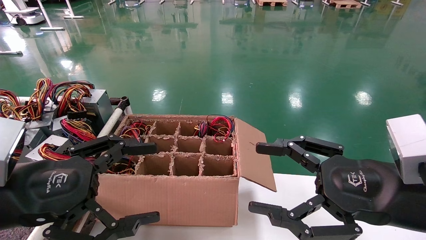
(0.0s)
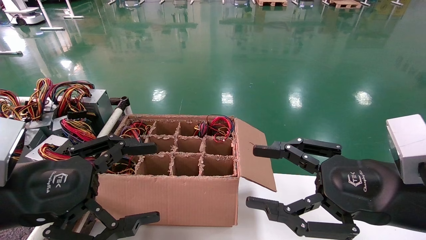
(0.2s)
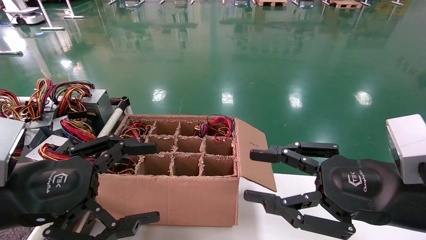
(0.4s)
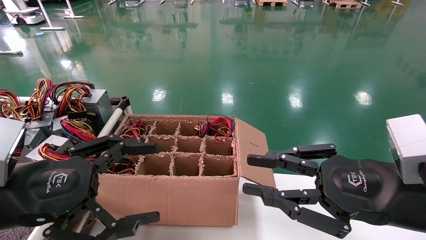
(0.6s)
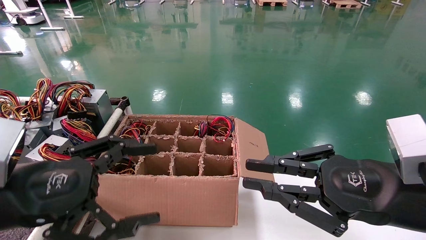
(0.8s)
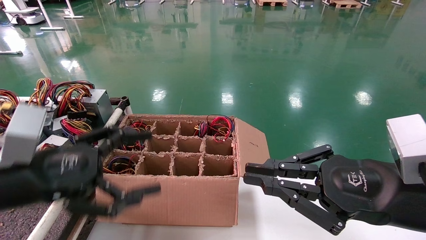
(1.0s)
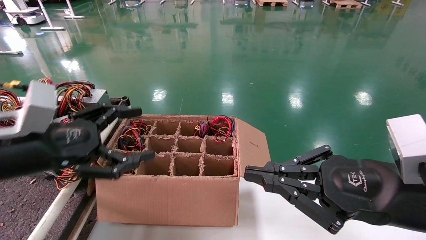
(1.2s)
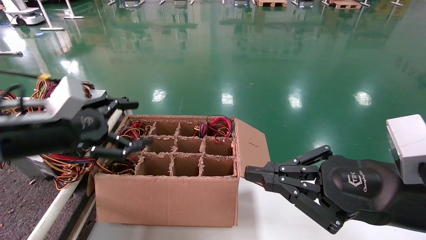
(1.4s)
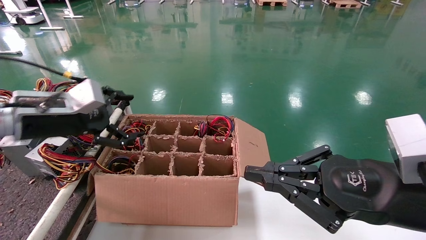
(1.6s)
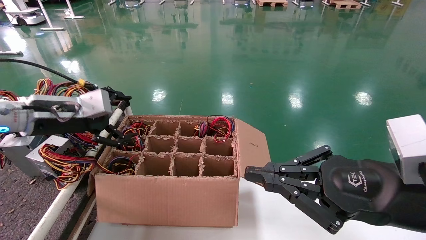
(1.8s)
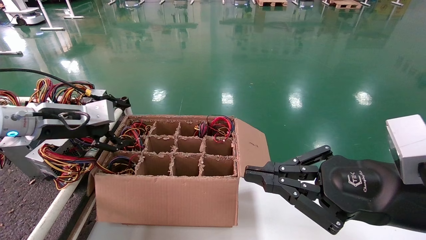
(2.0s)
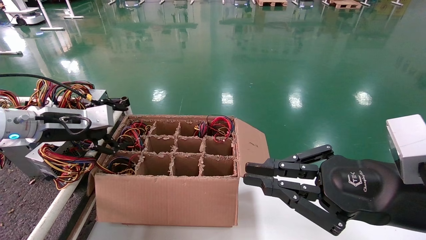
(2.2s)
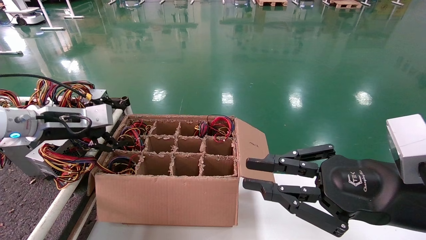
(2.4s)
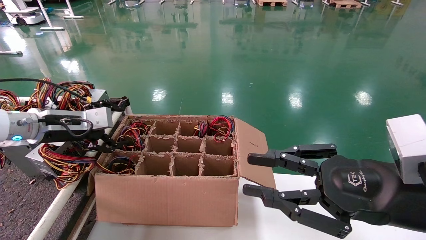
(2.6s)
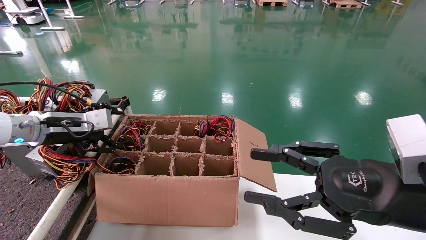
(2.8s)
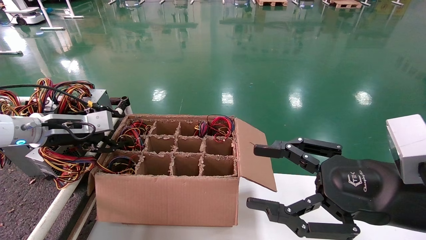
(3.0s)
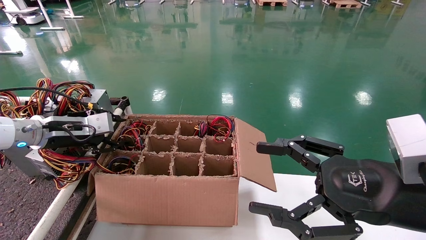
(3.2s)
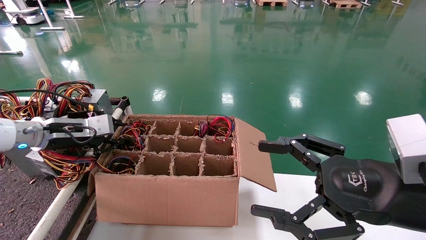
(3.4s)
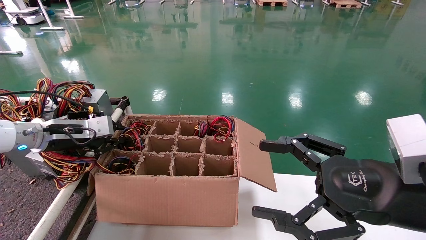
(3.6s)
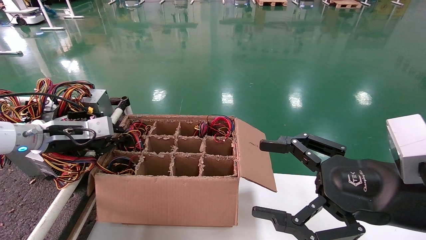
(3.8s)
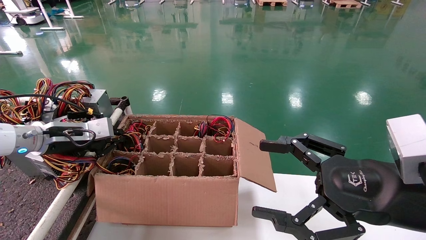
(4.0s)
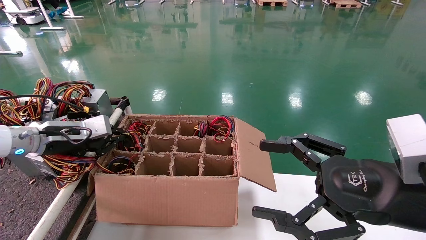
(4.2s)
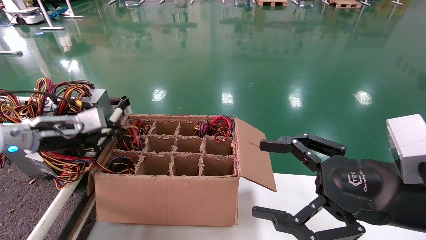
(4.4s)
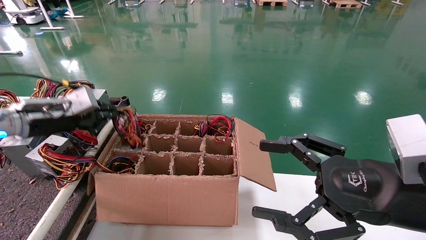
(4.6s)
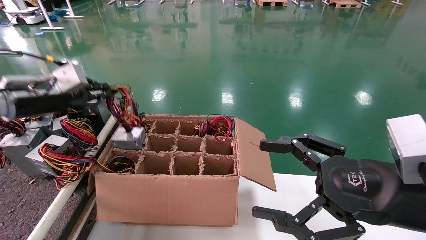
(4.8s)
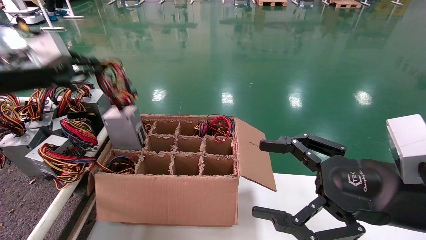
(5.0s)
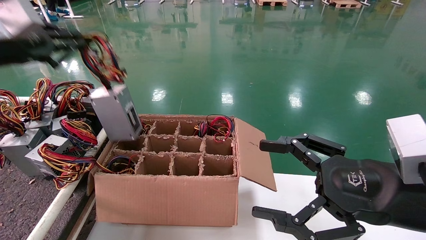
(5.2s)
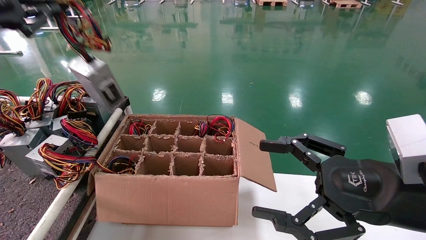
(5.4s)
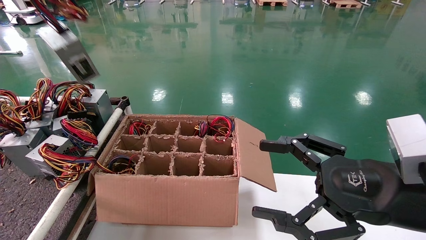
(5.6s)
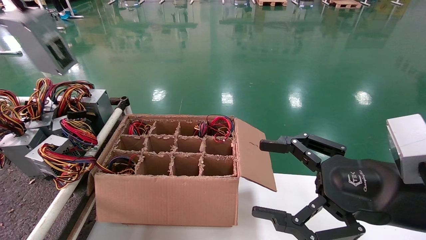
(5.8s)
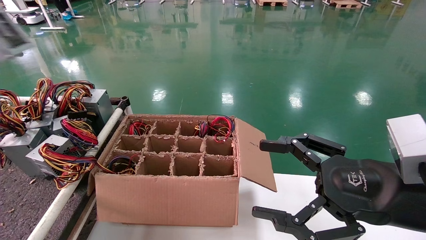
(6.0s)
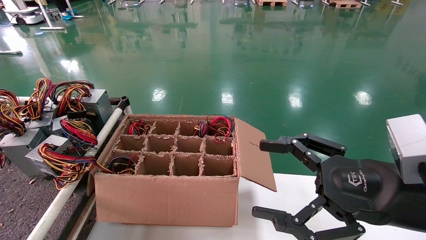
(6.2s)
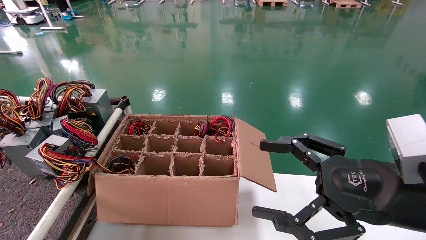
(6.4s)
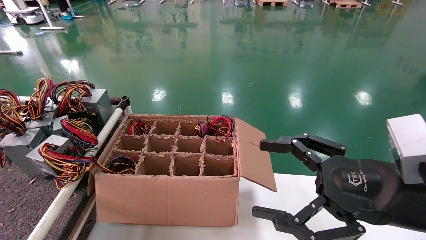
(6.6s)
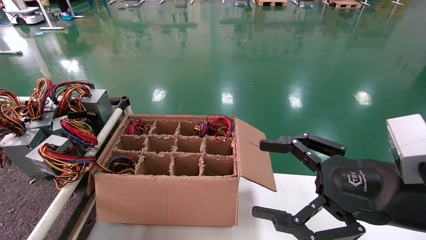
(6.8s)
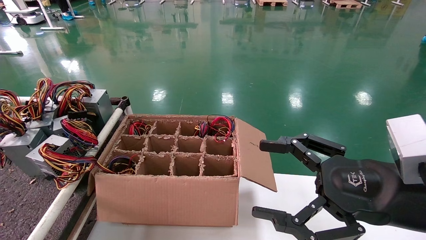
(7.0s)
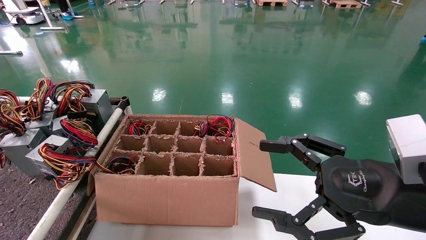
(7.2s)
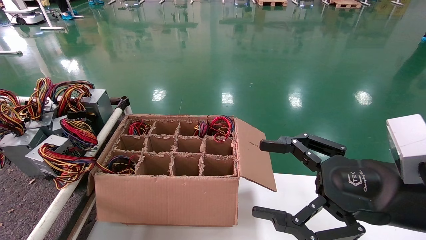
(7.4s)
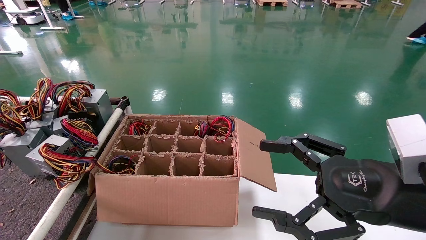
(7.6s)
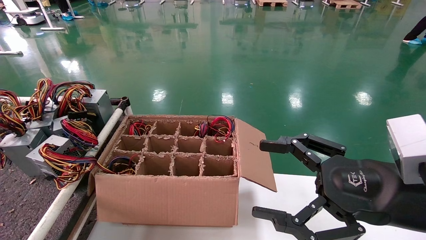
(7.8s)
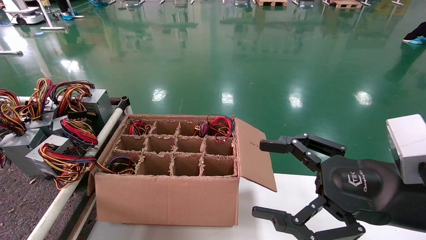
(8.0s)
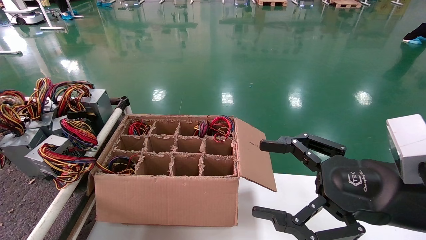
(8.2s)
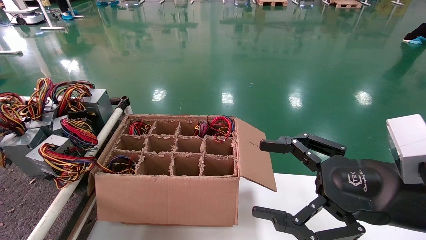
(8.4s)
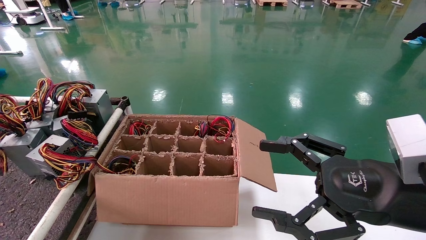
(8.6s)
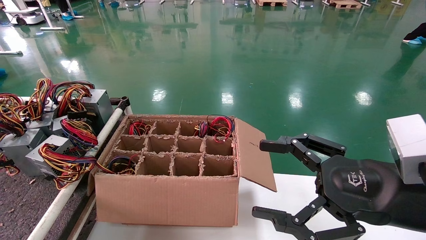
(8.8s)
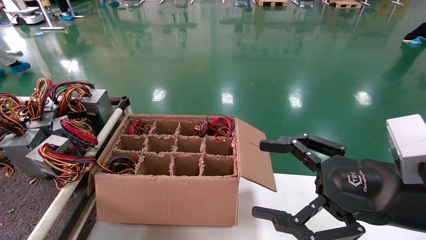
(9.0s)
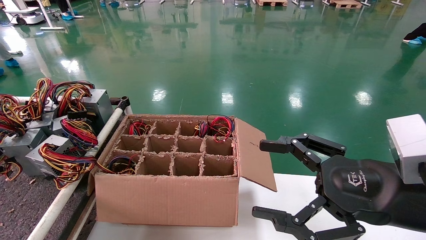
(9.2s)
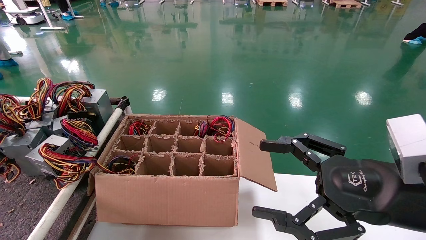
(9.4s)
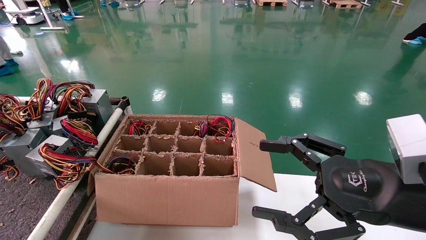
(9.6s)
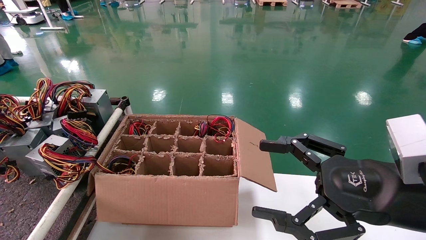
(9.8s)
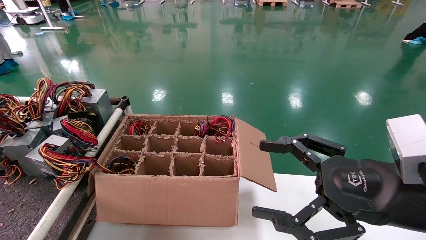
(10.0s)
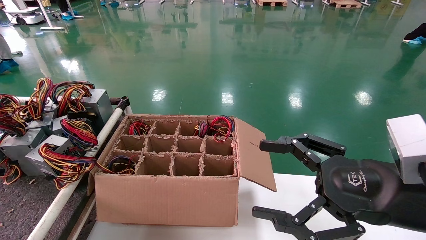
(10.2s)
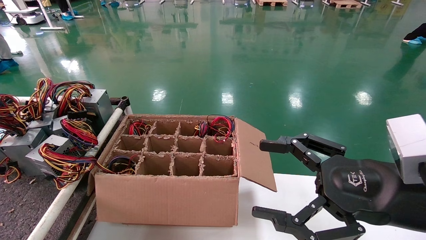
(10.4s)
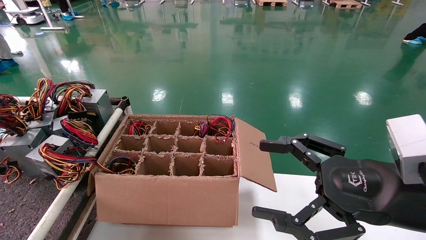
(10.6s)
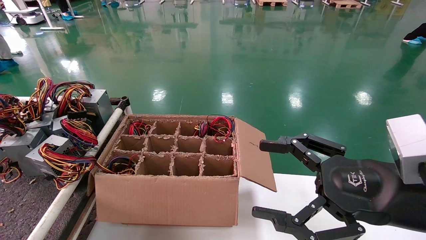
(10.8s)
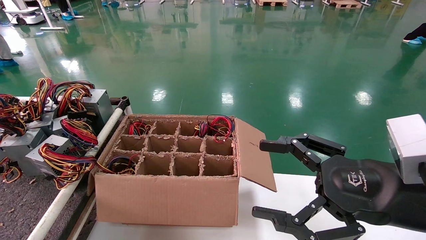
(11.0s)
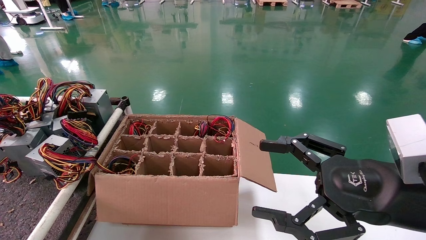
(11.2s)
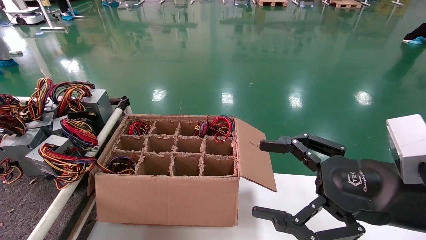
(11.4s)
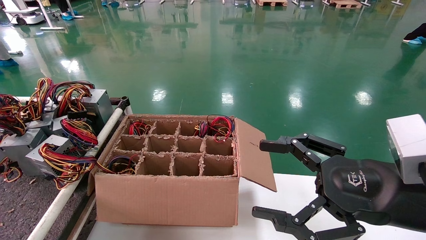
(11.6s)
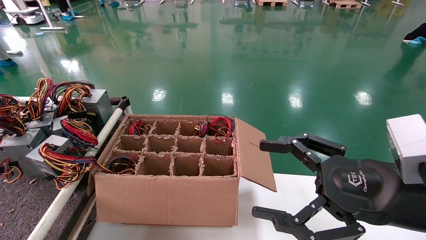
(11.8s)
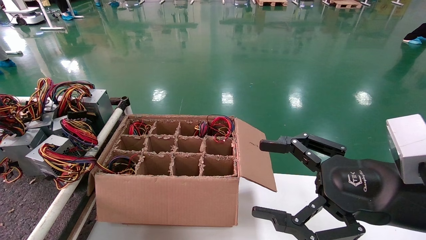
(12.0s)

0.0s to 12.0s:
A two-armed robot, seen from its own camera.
Step, 1.0s to 4.4s: Grab and lift the power supply from the large box.
0.0s to 1.6s: The left gripper travels forward by about 15 cm. The right gripper closes.
1.6s to 3.0s: The right gripper opens its fingers, while the left gripper shifts approximately 5 cm forward.
3.0s to 4.4s: The right gripper opens its fingers. The left gripper closes its fingers.
4.4s to 6.0s: The left gripper goes about 35 cm upward, to the left and backward.
6.0s to 7.6s: The left gripper travels to the left and downward by roughly 15 cm.
7.6s to 9.0s: The left gripper is displaced downward by roughly 10 cm.
9.0s to 10.4s: The left gripper goes approximately 5 cm downward.

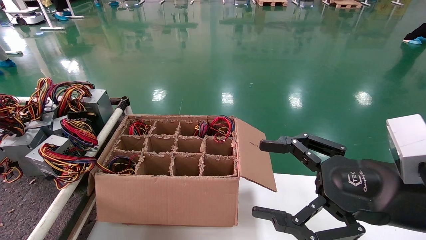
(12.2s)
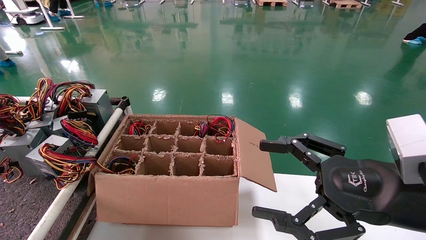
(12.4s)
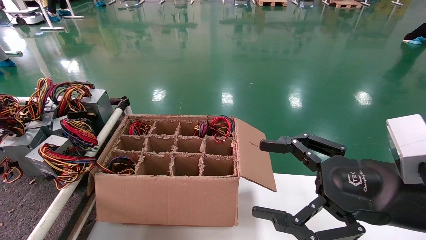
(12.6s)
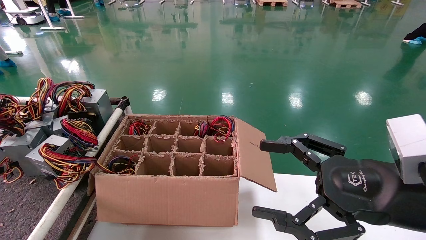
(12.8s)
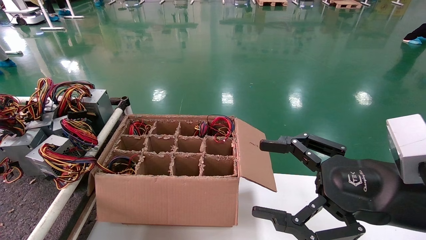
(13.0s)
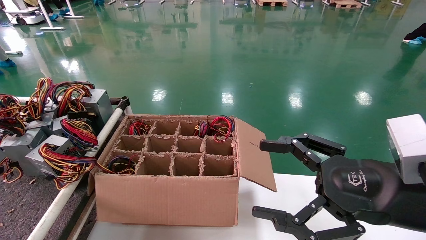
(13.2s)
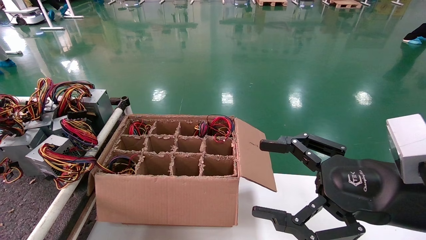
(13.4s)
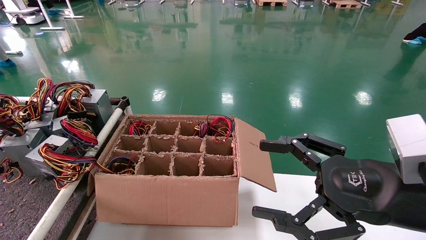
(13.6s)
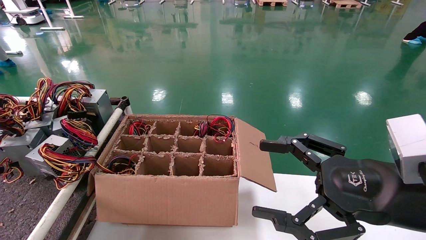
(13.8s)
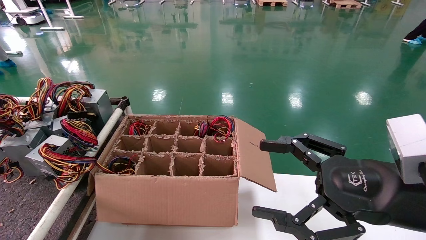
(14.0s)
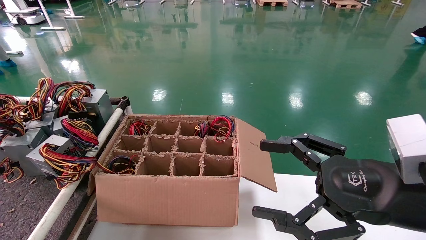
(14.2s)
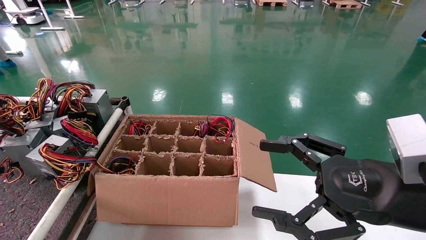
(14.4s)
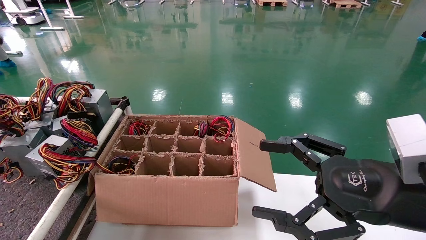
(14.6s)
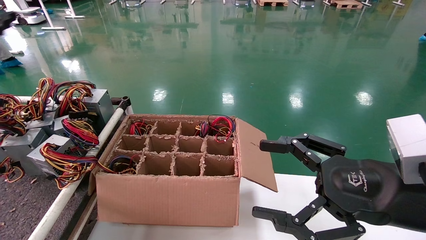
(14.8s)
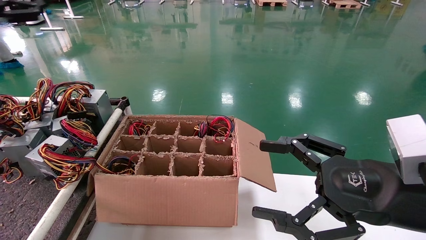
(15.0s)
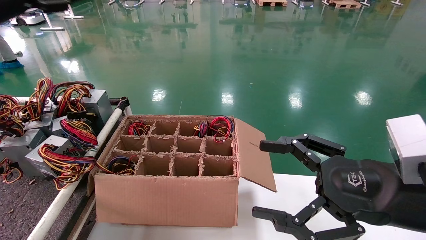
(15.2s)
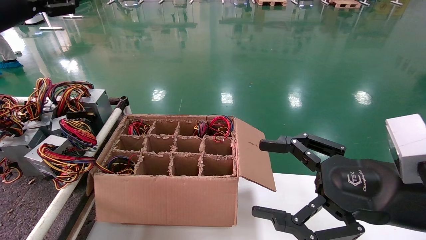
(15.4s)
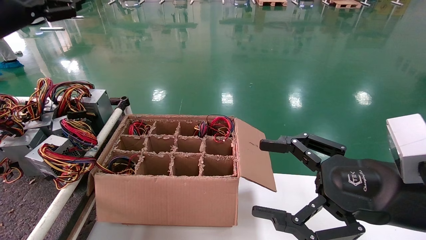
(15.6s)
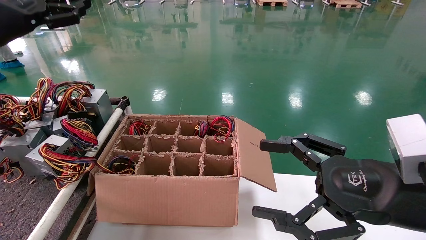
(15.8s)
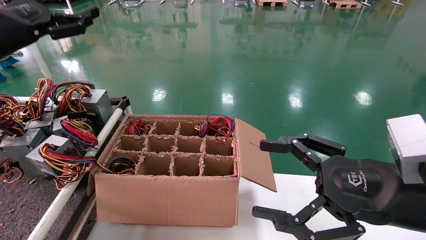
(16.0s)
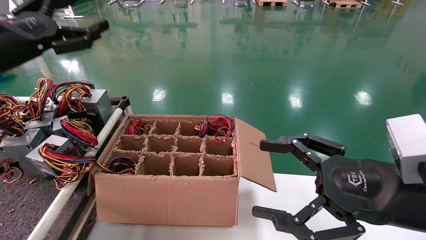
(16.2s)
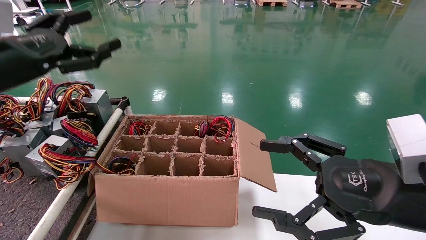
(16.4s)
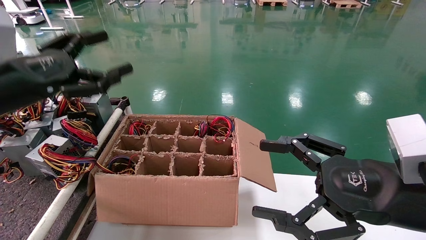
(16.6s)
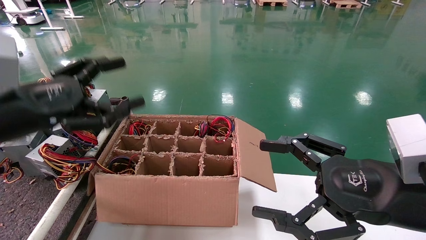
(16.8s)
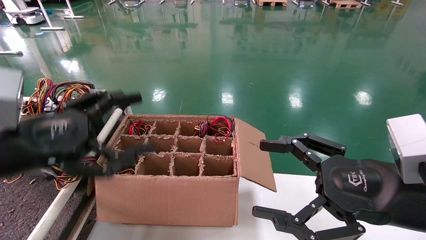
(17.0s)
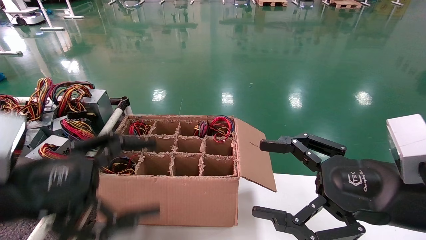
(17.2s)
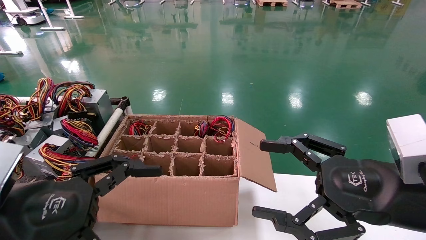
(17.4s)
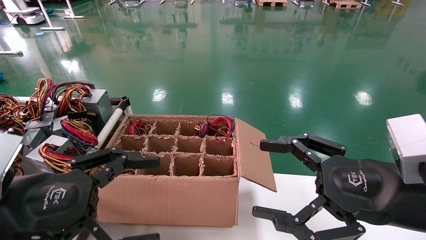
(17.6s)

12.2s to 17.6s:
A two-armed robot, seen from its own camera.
12.2s to 13.6s: The left gripper opens.
13.6s to 15.0s: The left gripper shifts about 20 cm to the right, upward and forward.
15.0s to 16.2s: The left gripper goes some 10 cm to the right and downward.
16.2s to 17.6s: The left gripper travels backward, downward and to the right by approximately 25 cm.
